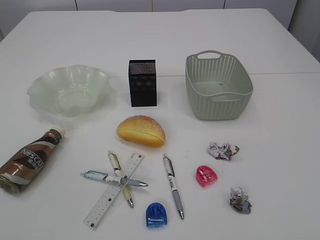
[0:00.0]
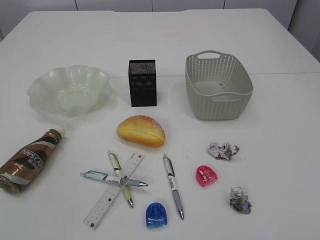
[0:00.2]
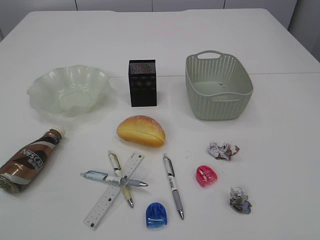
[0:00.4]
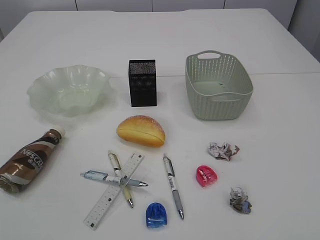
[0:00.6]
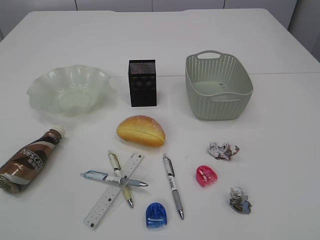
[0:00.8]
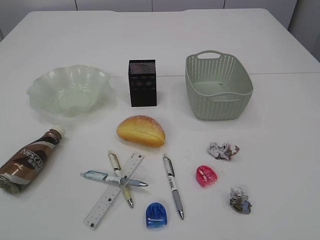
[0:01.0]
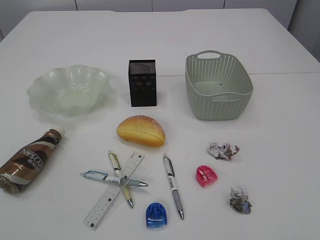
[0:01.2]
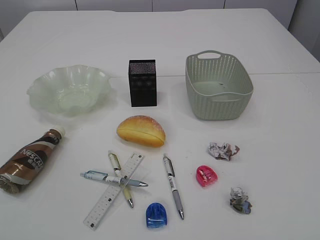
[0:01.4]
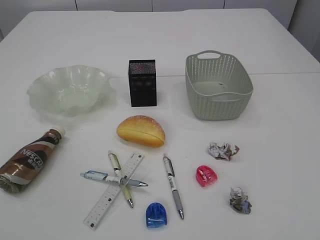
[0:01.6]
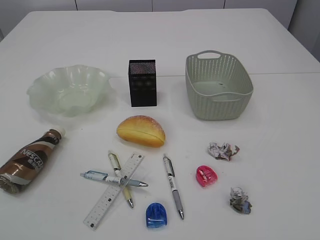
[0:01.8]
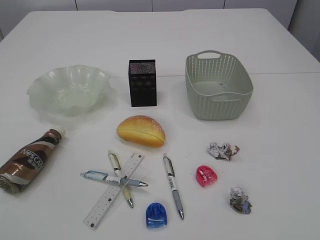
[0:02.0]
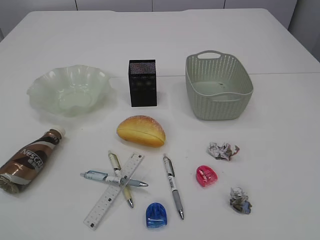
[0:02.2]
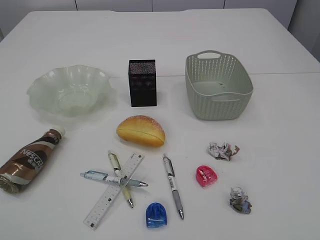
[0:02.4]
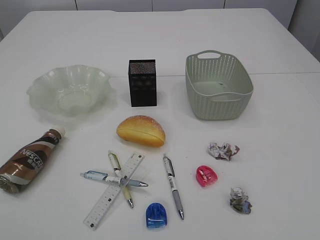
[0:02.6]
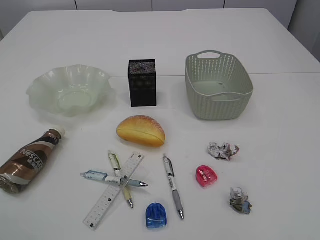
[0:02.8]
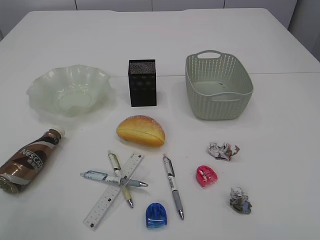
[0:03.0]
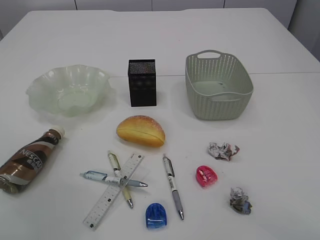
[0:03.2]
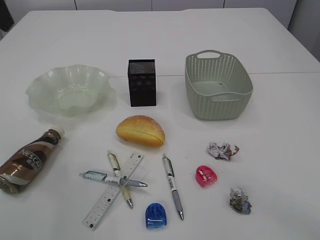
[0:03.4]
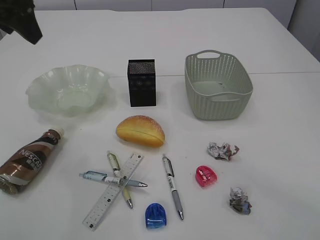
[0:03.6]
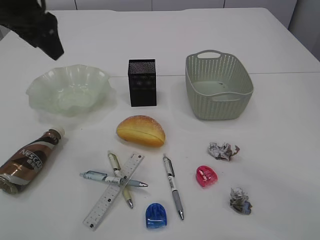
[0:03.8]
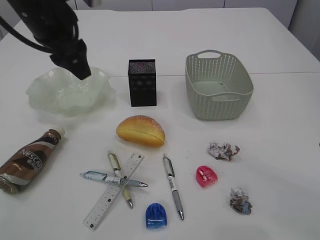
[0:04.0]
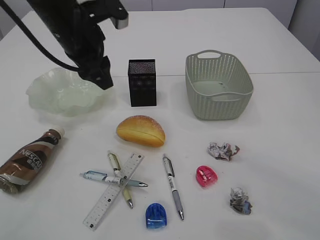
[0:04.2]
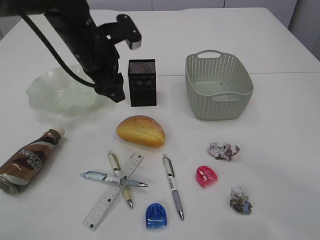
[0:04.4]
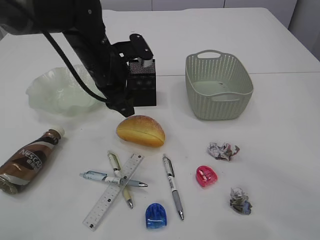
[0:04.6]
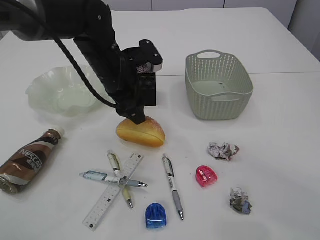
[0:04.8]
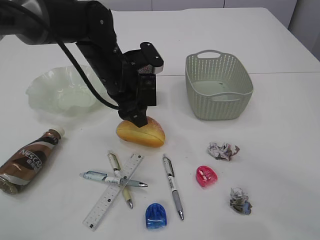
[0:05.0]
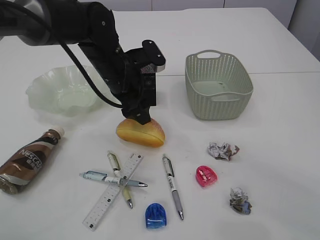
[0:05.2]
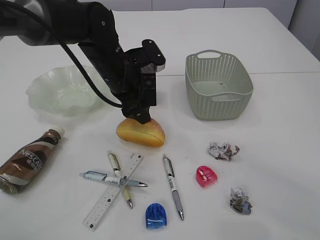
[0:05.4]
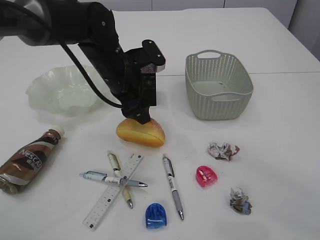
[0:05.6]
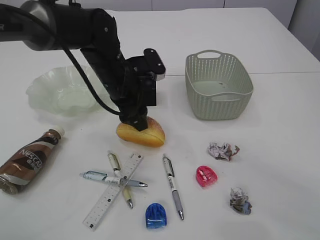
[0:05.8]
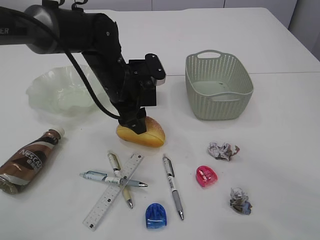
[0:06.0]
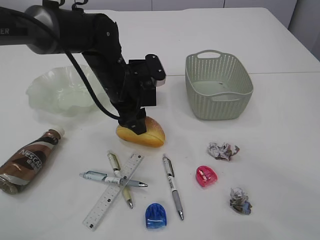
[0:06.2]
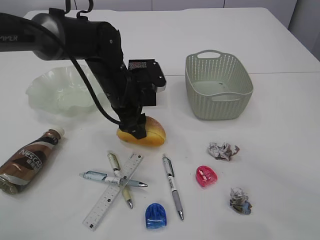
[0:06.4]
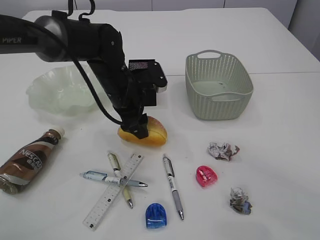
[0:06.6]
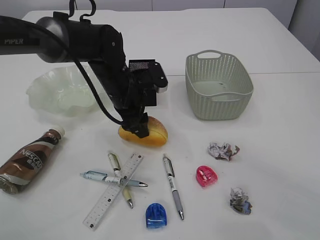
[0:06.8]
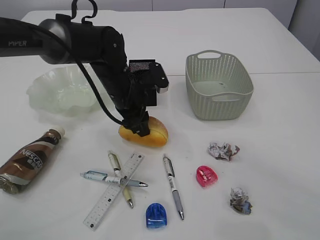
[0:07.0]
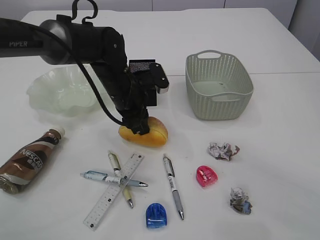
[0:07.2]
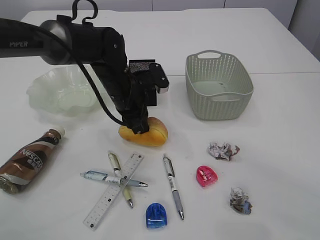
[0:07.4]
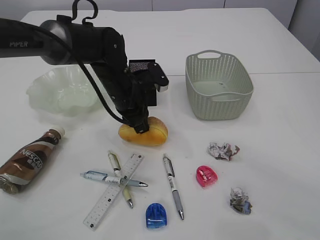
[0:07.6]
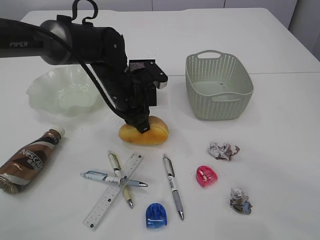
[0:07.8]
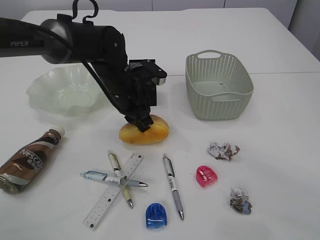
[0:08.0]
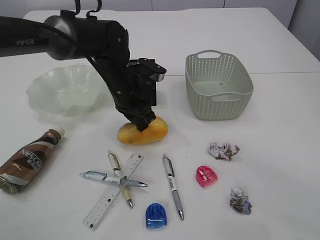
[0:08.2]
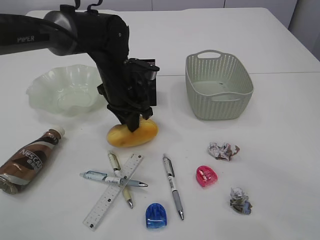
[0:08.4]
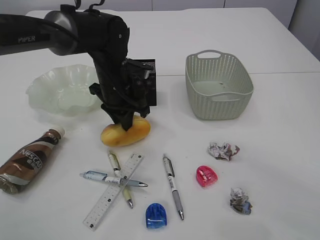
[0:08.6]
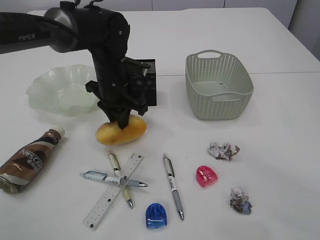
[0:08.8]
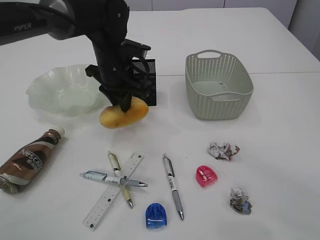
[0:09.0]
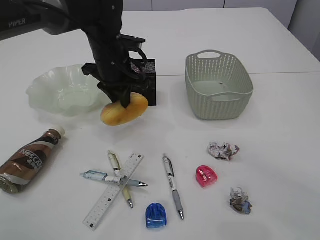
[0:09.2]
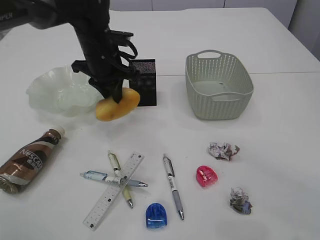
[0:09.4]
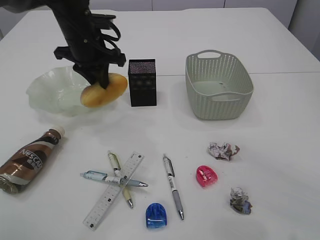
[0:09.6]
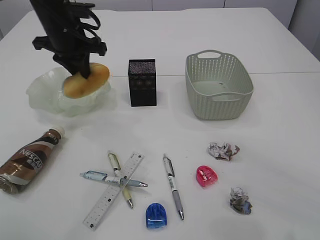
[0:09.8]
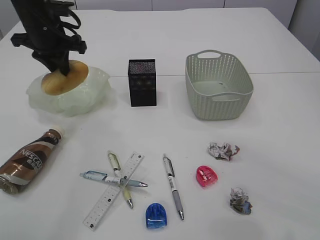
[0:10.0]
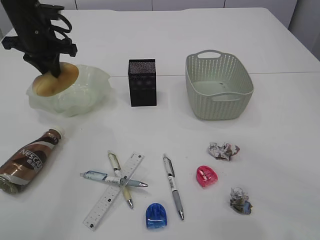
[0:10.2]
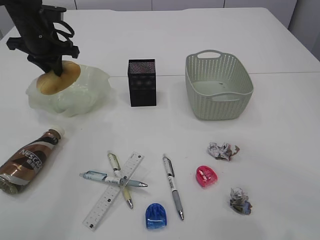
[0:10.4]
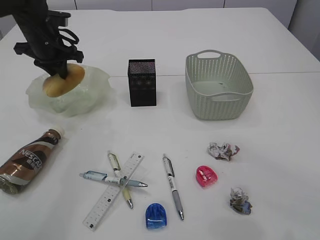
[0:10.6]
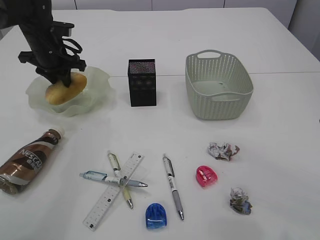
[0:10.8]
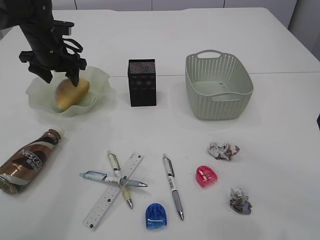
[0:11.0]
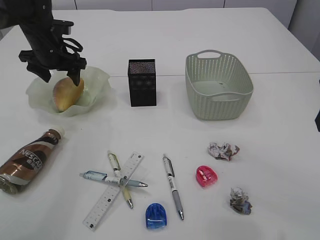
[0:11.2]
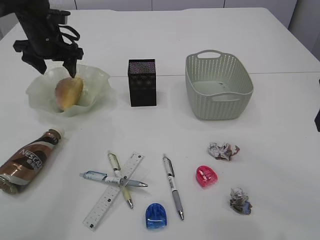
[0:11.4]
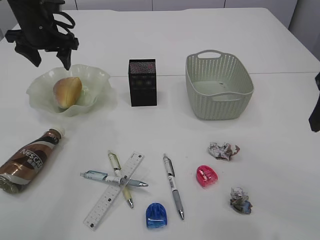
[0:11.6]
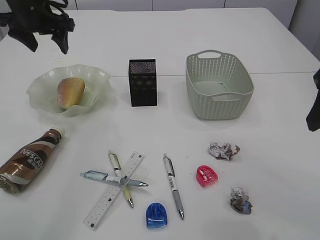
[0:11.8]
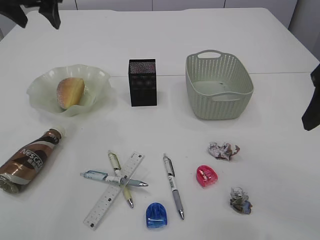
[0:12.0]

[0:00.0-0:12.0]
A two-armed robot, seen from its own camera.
Step, 0:09.6 to 0:11.6: place the bread in the plate.
0:03.0 to 0:04.4: The left gripper heads downward, to the right and forward, covering about 30 cm. Meanwhile the right gripper heads forward, covering about 20 cm.
0:04.4 to 0:06.0: The left gripper goes about 5 cm downward.
0:06.0 to 0:07.6: The left gripper closes its fingers.
0:07.6 to 0:09.0: The left gripper ends up about 5 cm from where it was.
0:09.0 to 0:10.4: The left gripper goes roughly 15 cm to the left.
0:10.4 to 0:12.0: The left gripper goes some 10 cm upward, and opens its fingers.

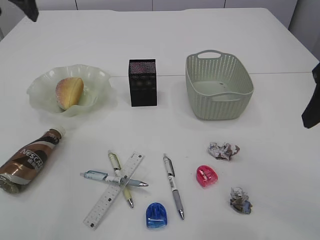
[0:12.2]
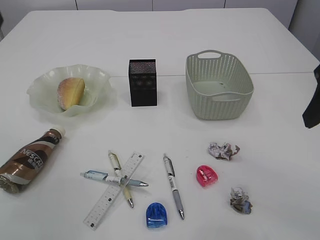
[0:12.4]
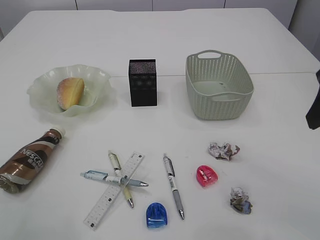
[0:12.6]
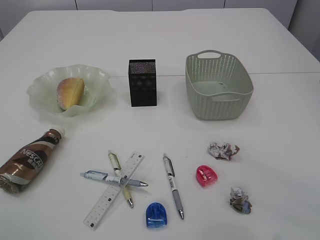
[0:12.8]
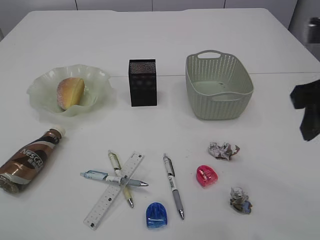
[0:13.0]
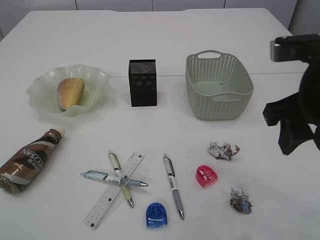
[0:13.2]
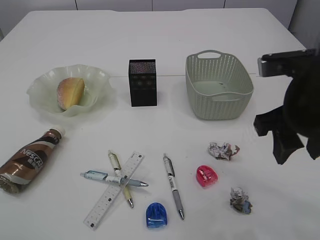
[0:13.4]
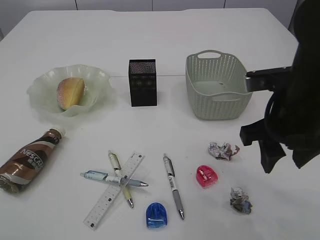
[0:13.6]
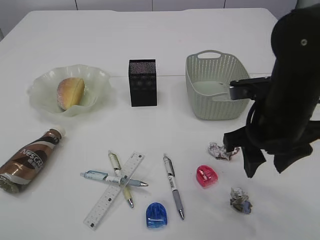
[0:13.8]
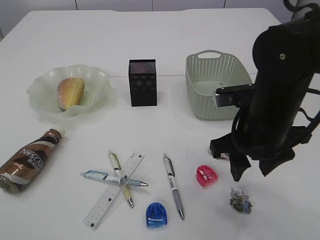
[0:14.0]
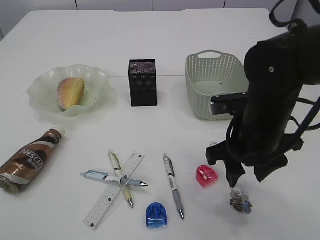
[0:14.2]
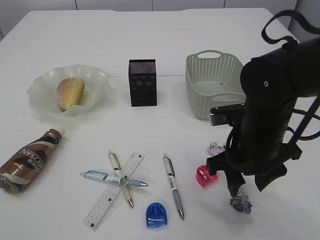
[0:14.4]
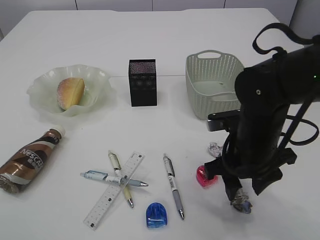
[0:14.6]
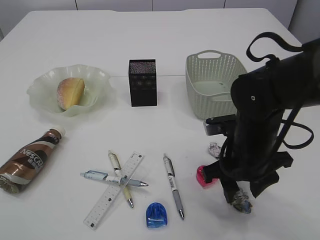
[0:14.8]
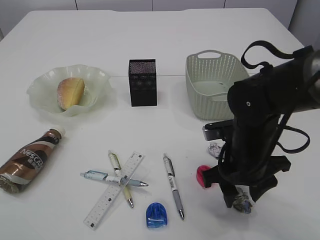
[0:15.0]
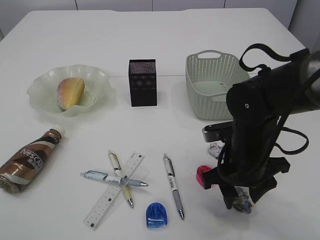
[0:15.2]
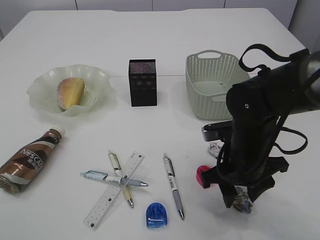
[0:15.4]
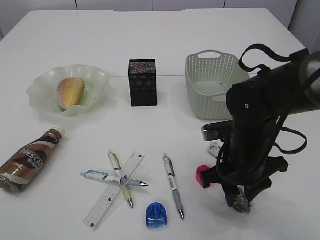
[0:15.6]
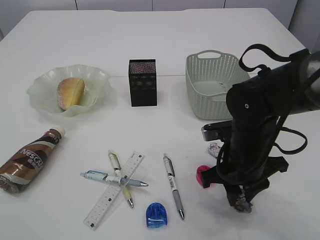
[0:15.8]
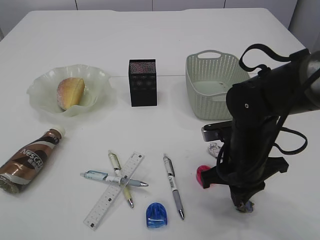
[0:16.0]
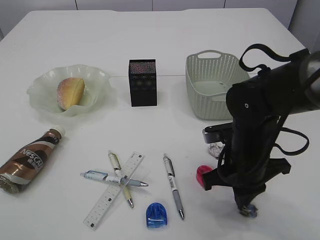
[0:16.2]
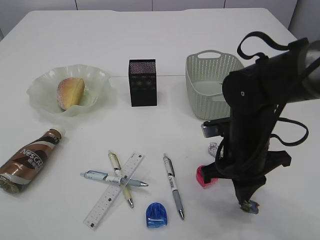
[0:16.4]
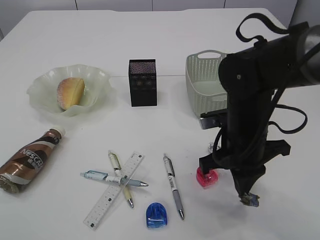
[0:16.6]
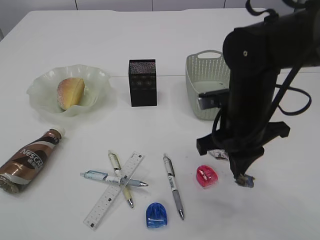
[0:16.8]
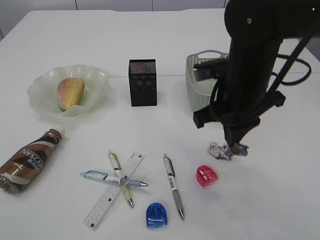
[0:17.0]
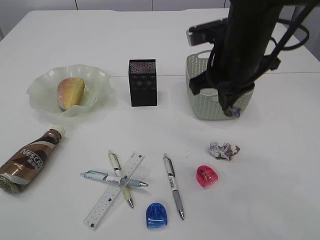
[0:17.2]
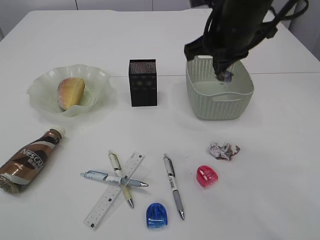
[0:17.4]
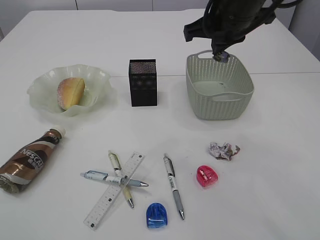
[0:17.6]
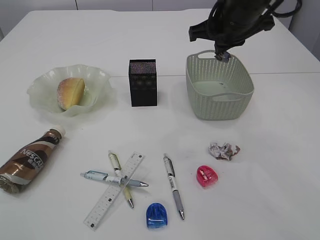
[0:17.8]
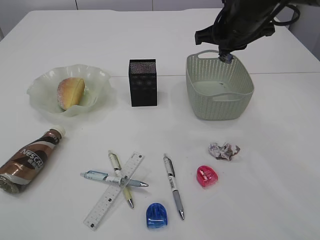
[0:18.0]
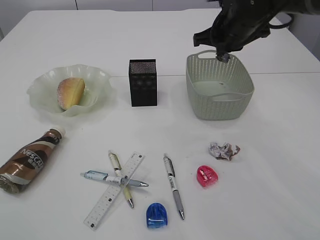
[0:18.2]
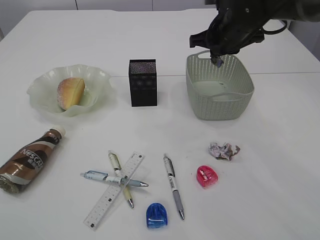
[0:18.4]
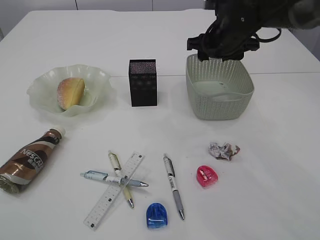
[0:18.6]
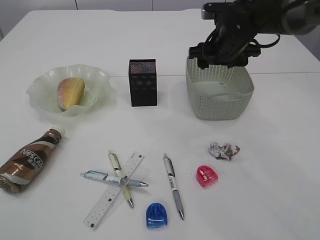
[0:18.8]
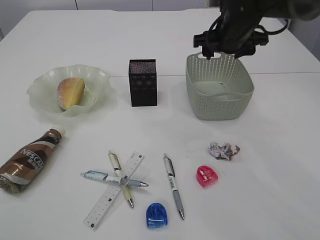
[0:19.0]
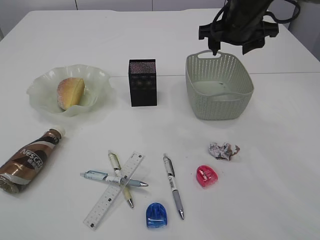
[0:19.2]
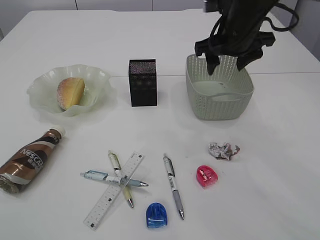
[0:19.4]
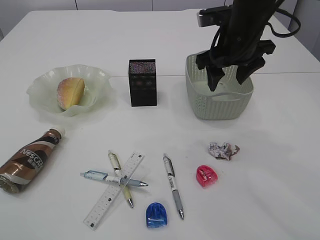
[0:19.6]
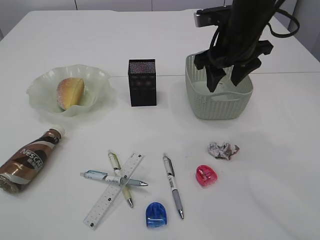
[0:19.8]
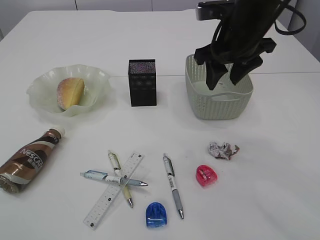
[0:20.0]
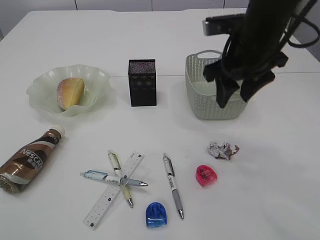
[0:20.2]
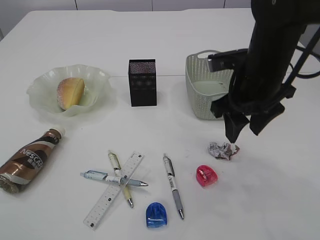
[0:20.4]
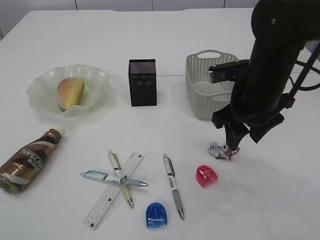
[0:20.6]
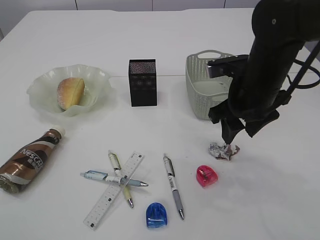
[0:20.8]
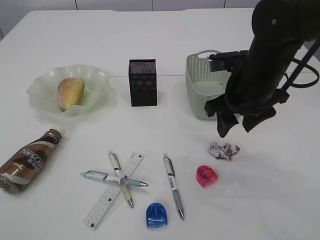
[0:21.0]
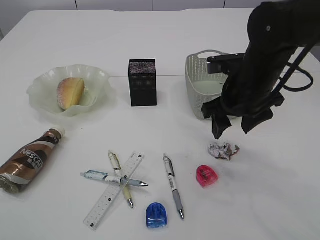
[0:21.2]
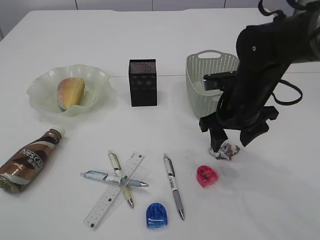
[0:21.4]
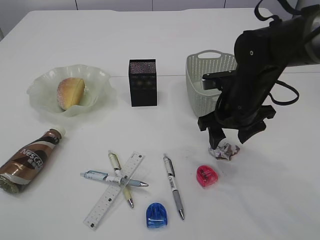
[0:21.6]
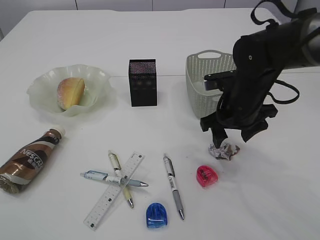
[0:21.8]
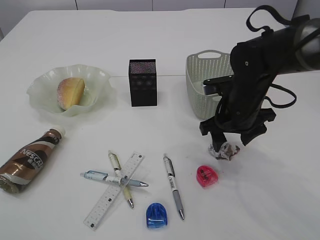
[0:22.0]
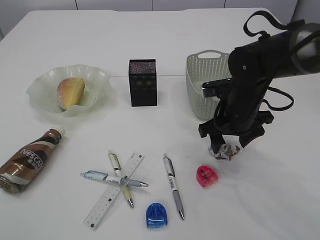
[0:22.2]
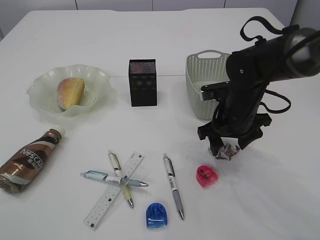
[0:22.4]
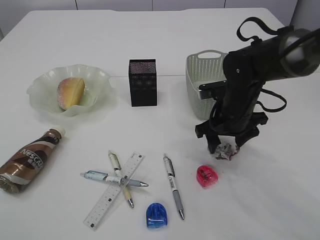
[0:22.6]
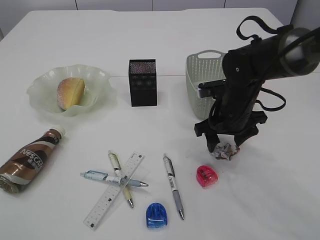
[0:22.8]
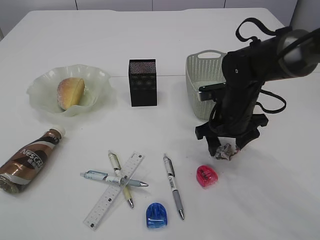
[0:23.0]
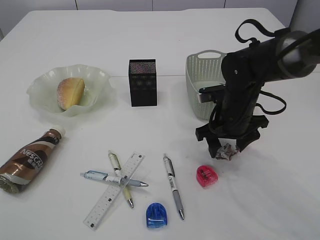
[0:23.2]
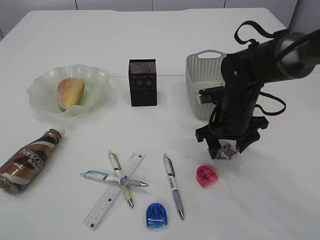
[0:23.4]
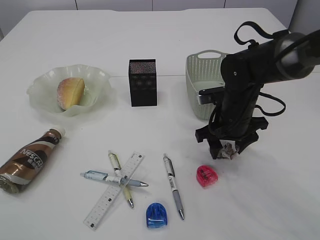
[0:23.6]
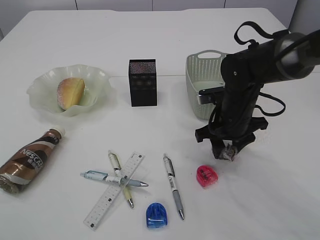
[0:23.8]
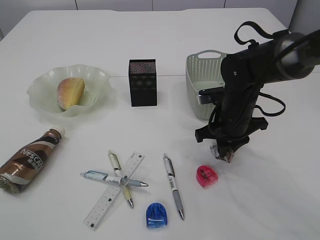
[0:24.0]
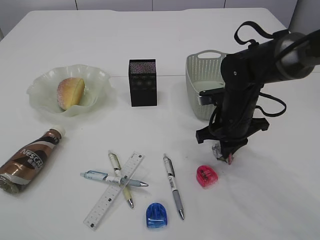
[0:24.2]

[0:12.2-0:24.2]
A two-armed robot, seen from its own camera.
Step, 0:12.2 to 0:16.8: Pick up the waste paper.
Step, 0:17.0 to 0:19.8: Place the waste paper in the basket.
0:12.2 to 0:13.8: The left gripper moves backward and upward, about 25 cm; the right gripper shifts some 15 cm downward and to the left.
0:13.8 to 0:15.2: The right gripper travels downward by approximately 10 cm.
0:15.2 to 0:16.6: The right gripper closes its fingers.
0:16.6 to 0:18.2: The right gripper moves forward and upward, approximately 20 cm.
0:18.2 to 0:19.8: The right gripper opens.
0:19.8 to 0:21.2: The right gripper is displaced backward and downward by some 10 cm.
0:21.2 to 0:22.6: The right gripper travels downward by some 10 cm.
0:22.6 to 0:24.2: The right gripper closes up.
